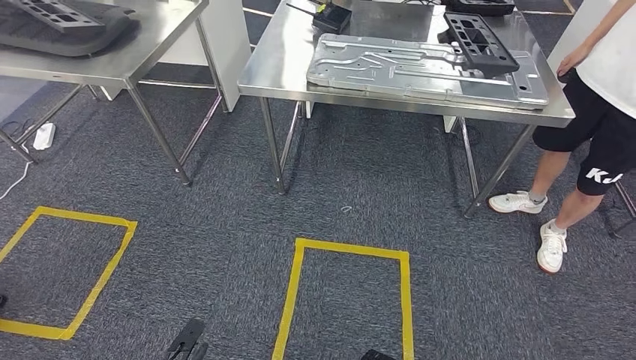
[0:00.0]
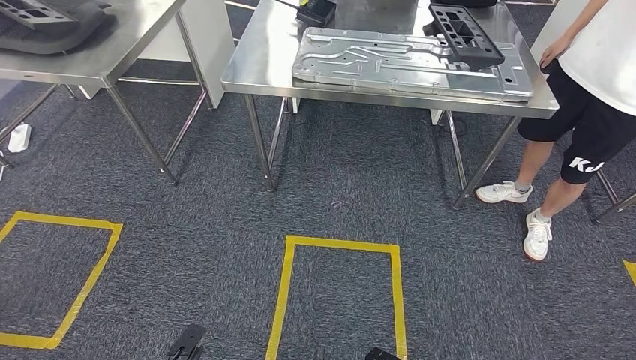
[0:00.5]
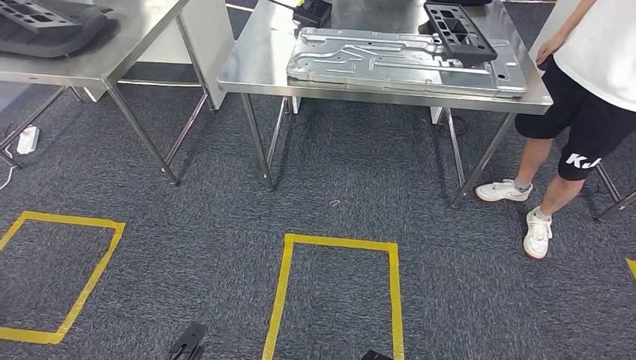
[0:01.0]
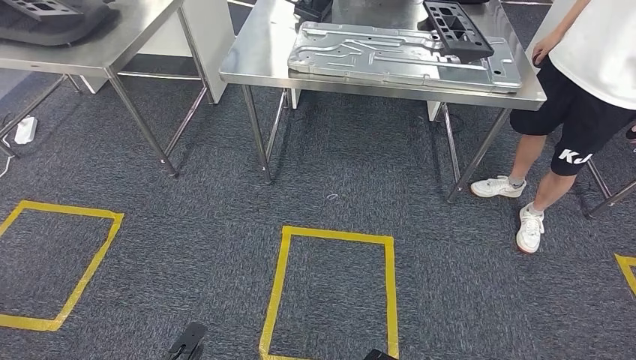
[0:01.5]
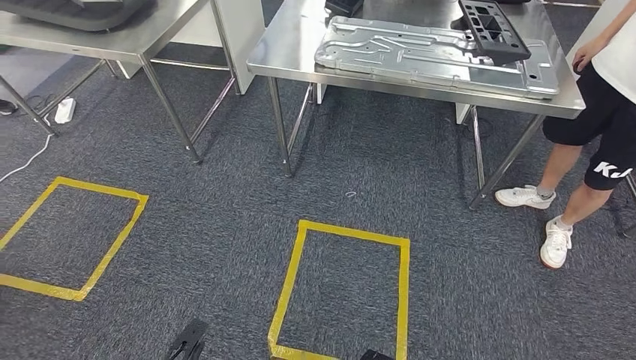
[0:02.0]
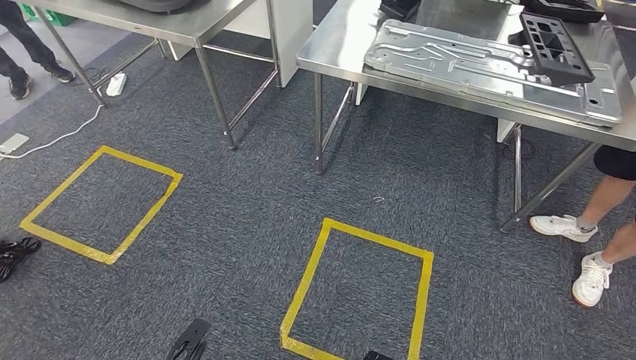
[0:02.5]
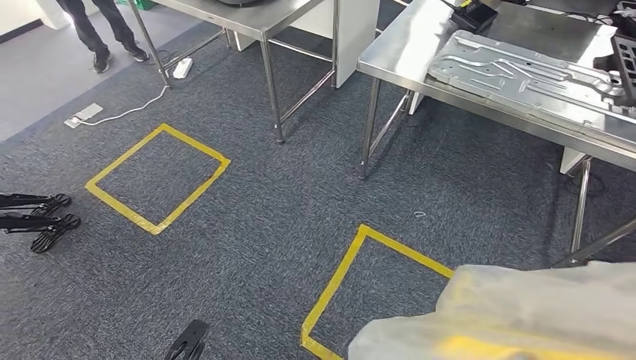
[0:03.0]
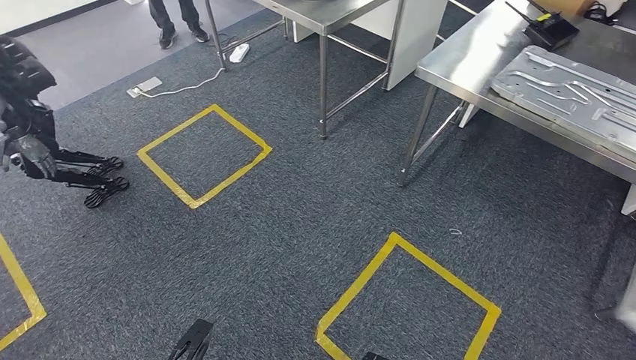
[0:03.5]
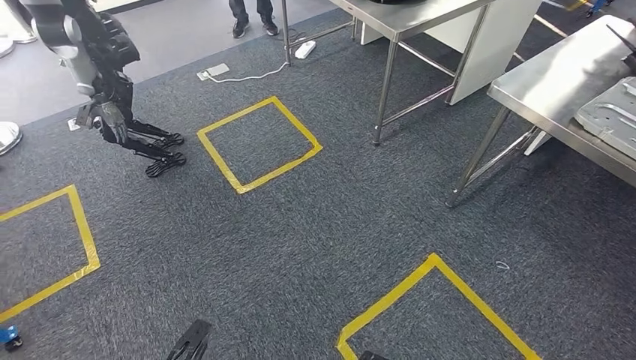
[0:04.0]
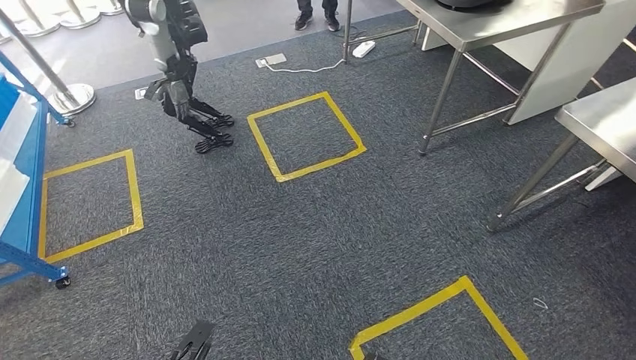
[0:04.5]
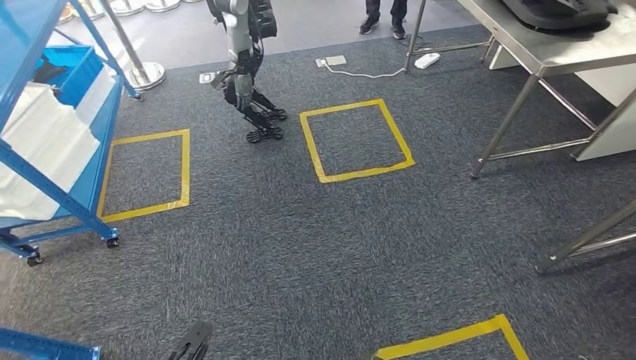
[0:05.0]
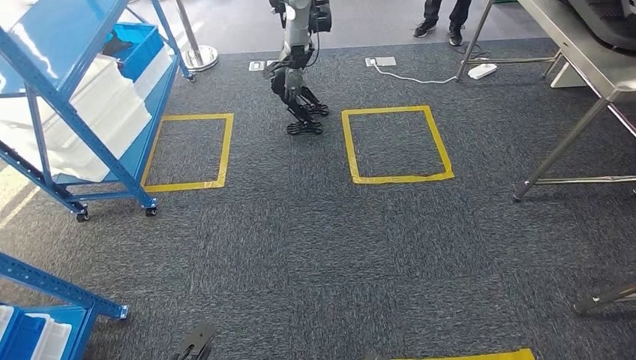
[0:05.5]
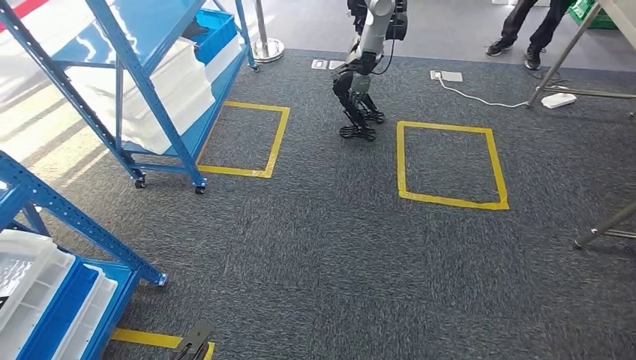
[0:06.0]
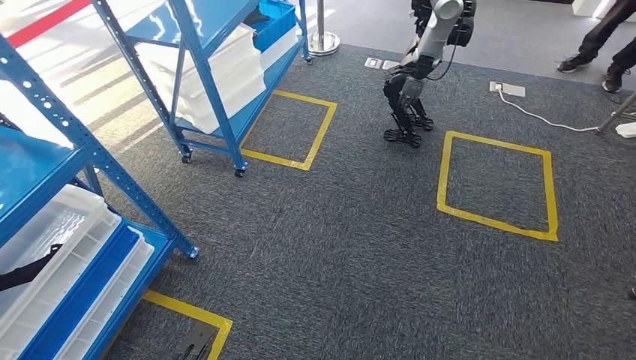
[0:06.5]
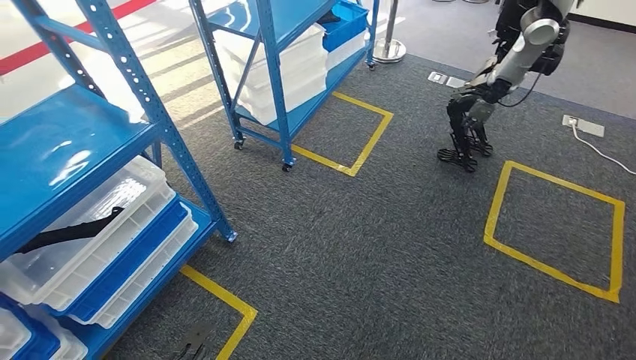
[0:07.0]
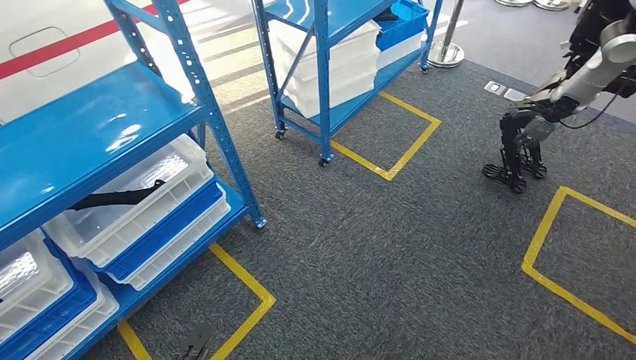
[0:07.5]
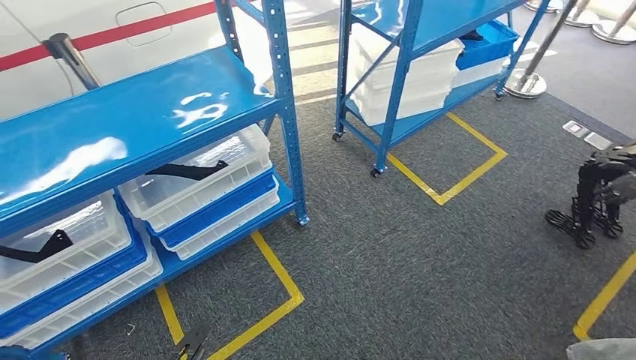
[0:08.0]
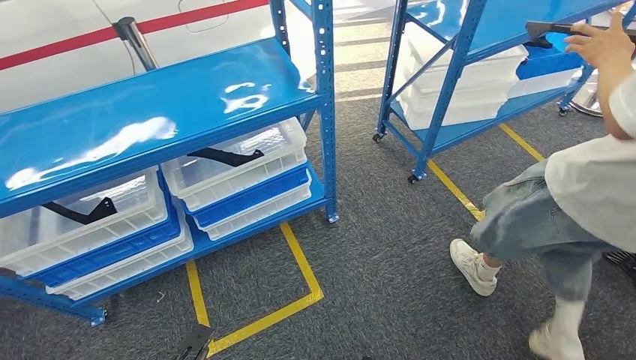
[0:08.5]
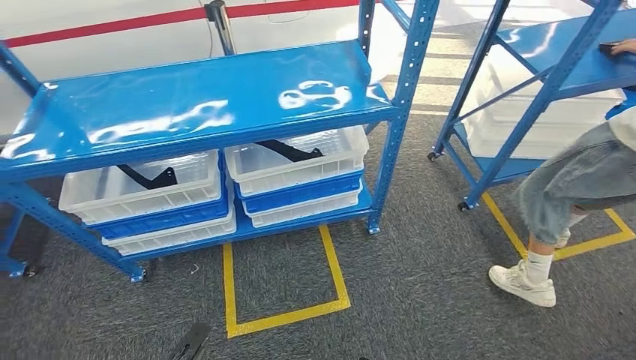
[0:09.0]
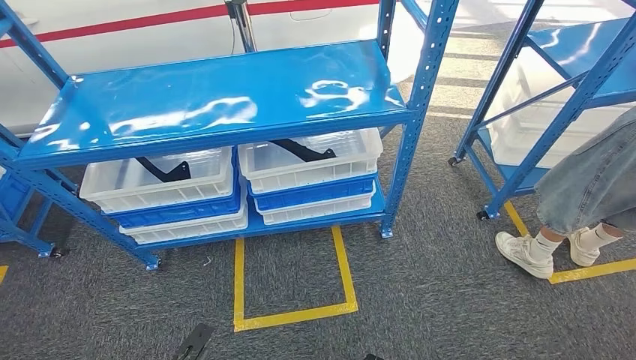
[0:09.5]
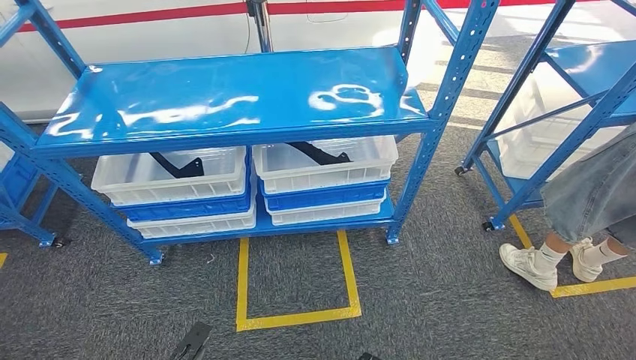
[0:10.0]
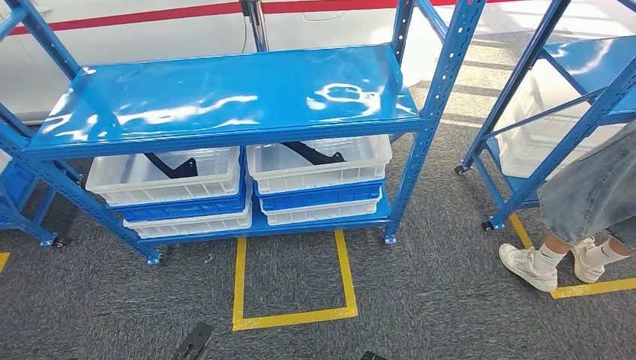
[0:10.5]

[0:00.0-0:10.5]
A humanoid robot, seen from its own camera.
Step, 0:00.5 to 0:10.5: Return to the initial position at the shelf.
